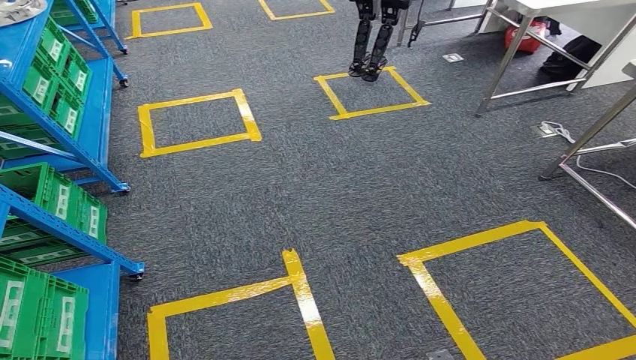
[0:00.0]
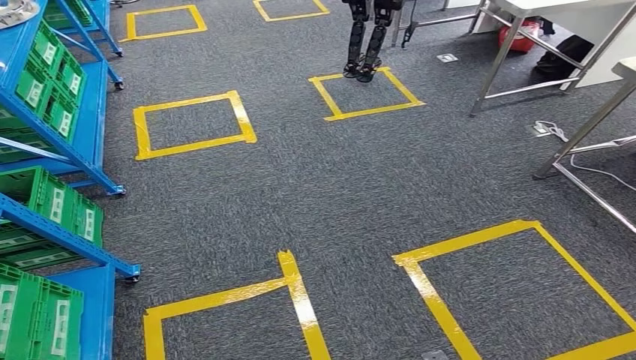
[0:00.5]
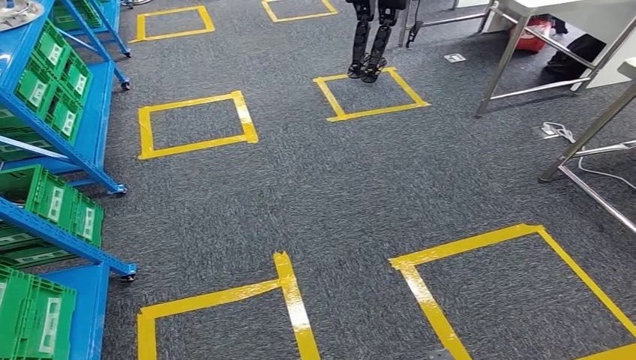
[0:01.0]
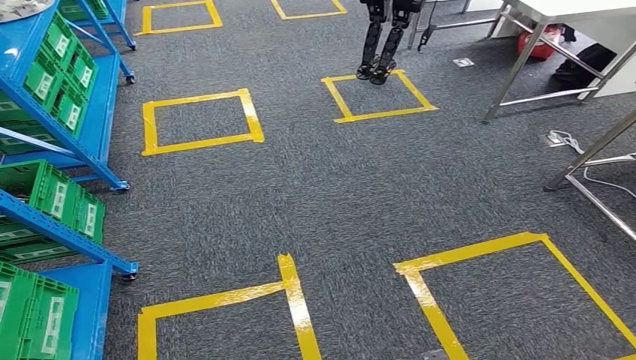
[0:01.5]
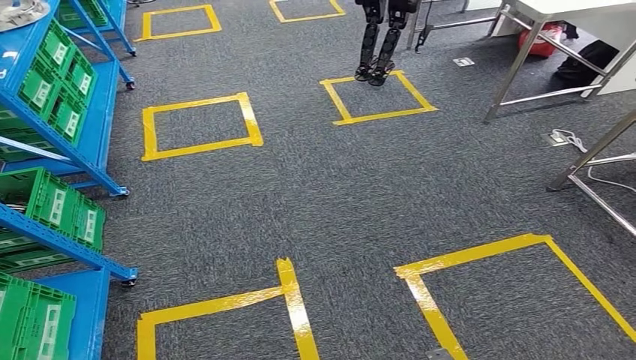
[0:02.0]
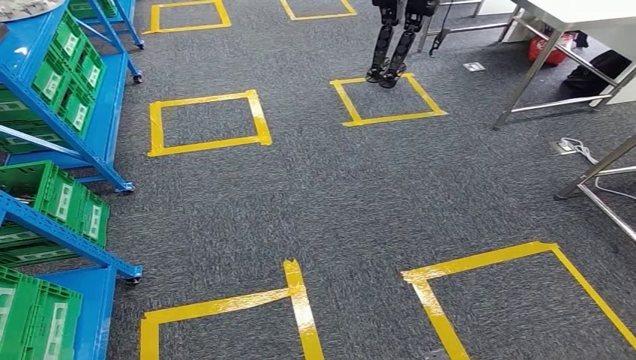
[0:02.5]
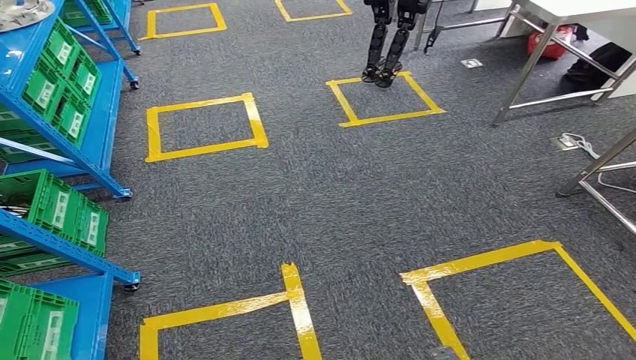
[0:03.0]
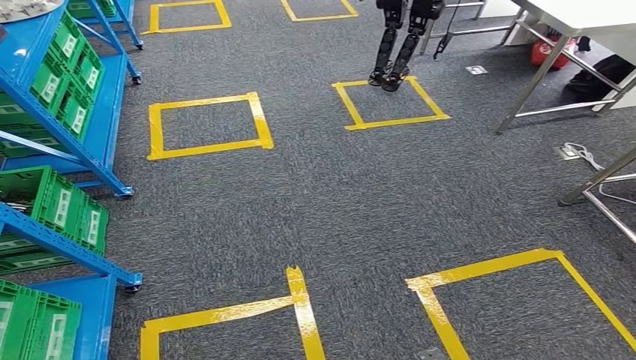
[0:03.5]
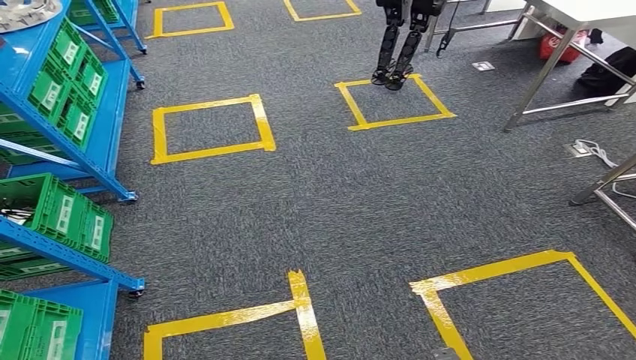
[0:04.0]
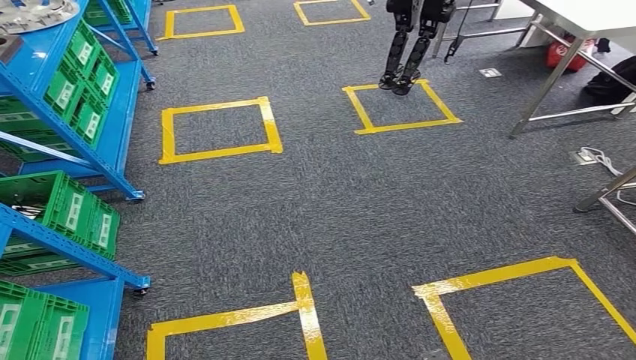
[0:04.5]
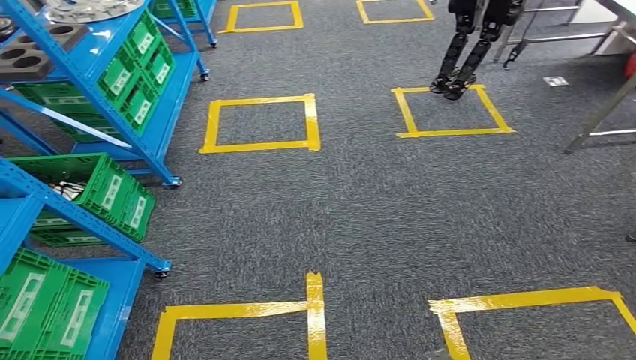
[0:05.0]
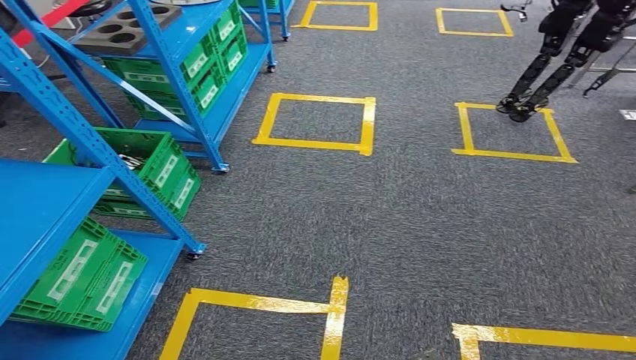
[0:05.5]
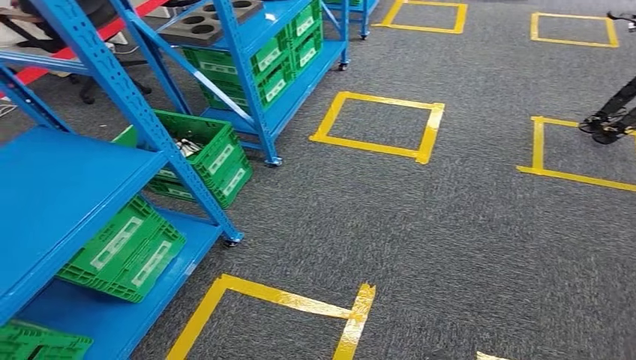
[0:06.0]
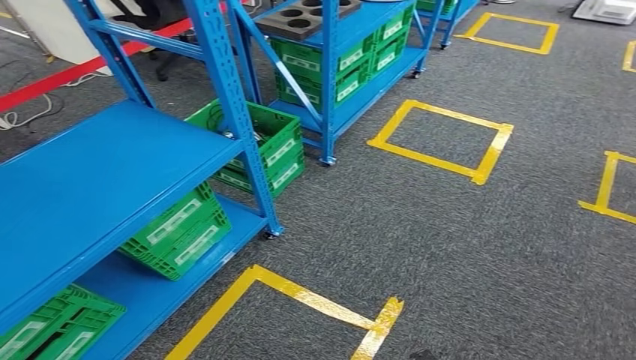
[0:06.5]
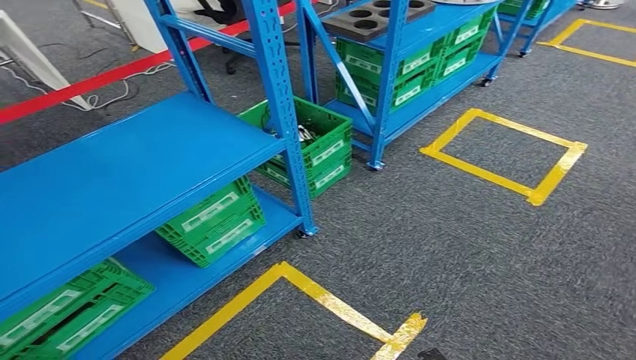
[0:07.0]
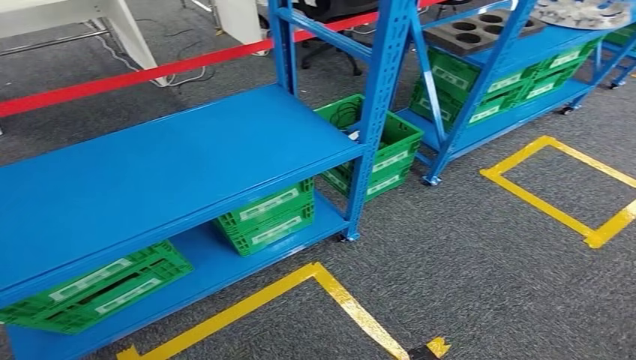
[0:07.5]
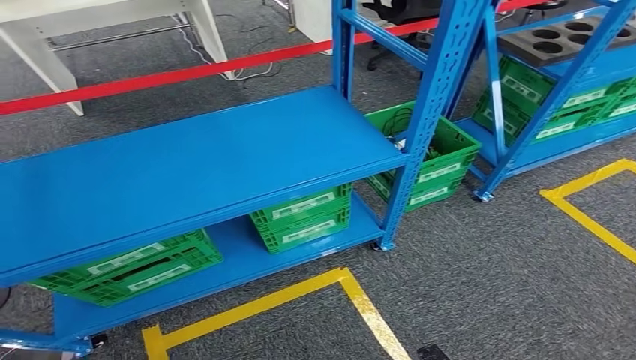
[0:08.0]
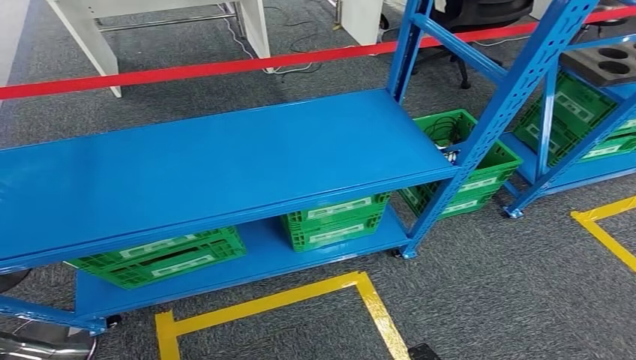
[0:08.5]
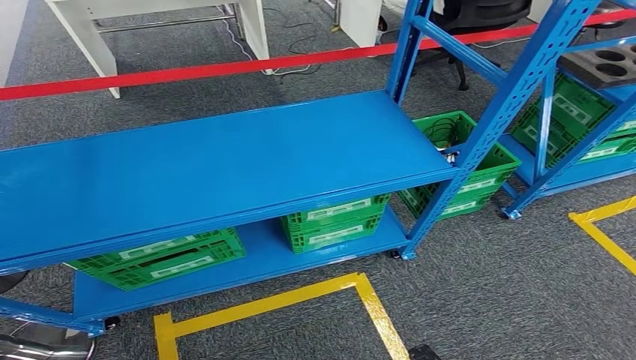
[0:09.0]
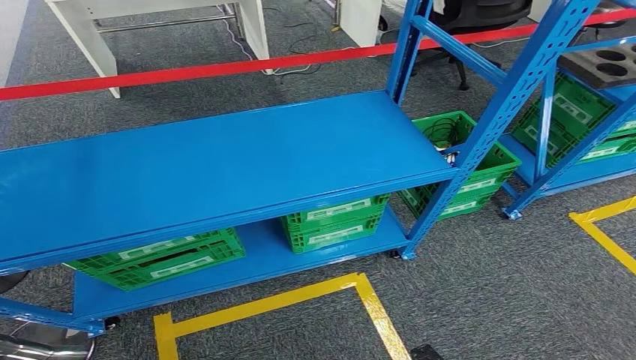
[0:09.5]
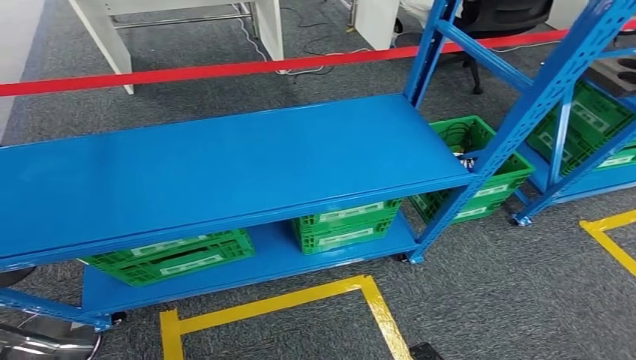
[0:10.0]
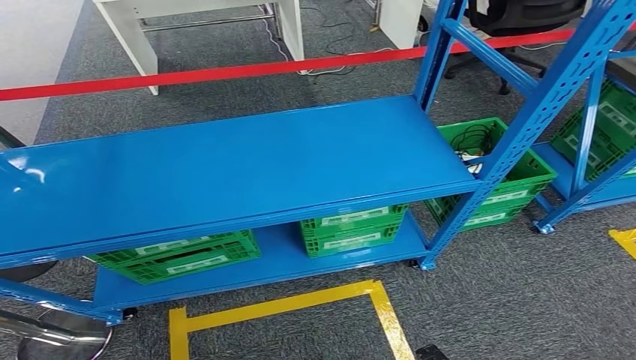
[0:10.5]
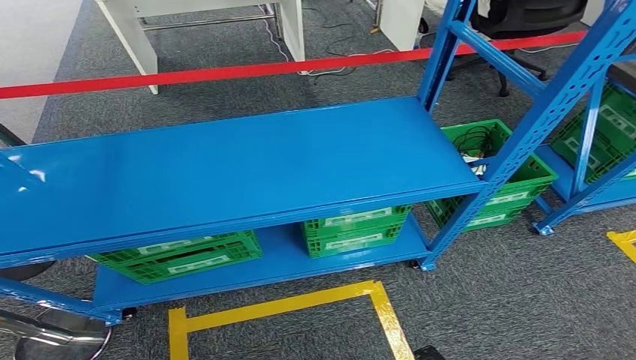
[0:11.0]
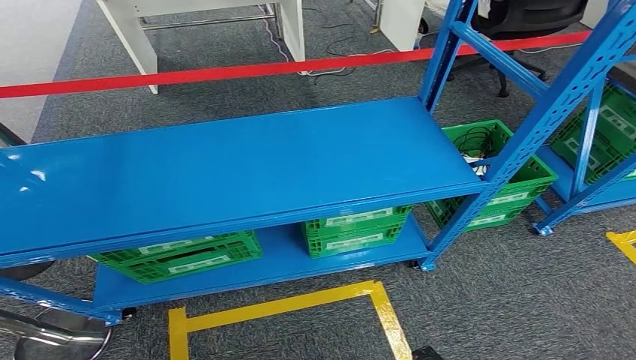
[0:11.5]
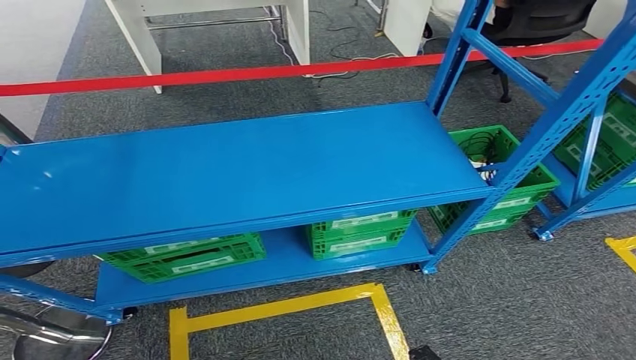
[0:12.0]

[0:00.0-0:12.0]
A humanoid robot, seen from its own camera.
Step, 0:00.0 to 0:12.0: Move to the initial position of the workbench.
